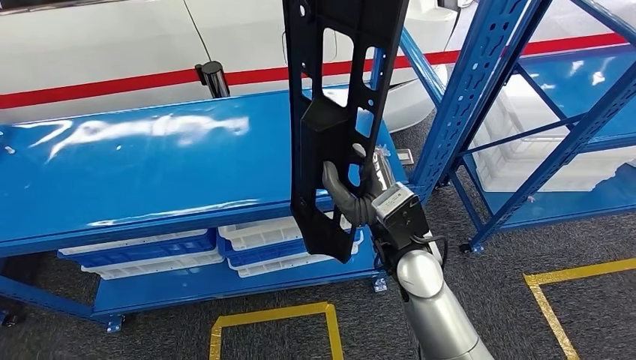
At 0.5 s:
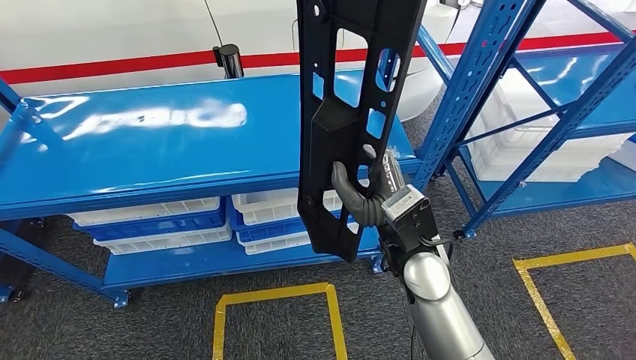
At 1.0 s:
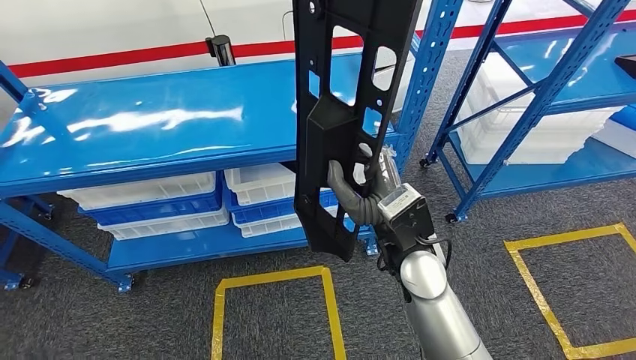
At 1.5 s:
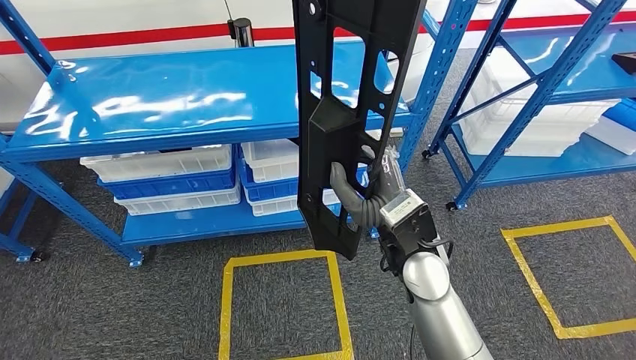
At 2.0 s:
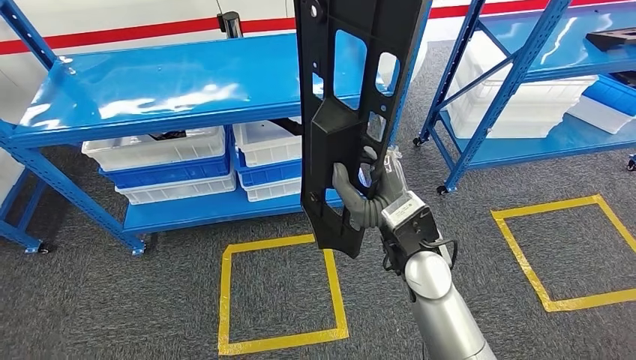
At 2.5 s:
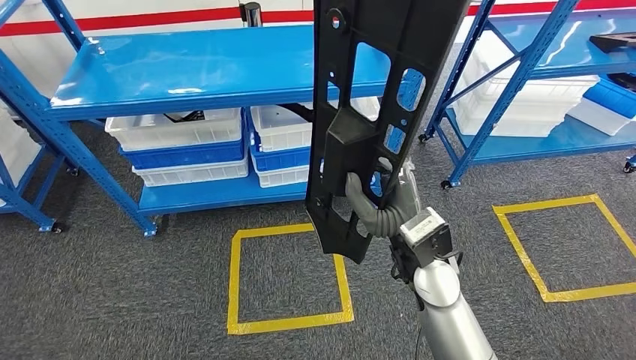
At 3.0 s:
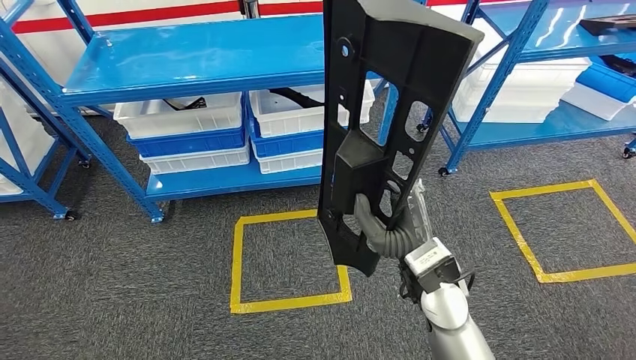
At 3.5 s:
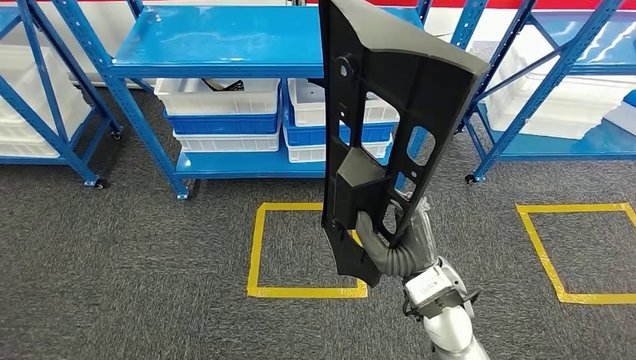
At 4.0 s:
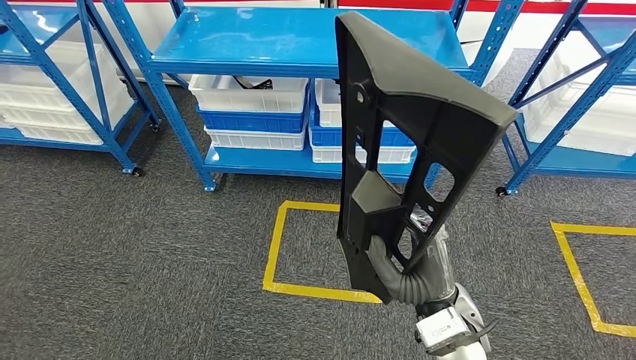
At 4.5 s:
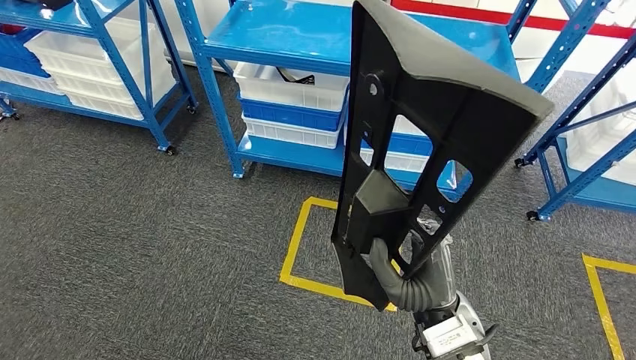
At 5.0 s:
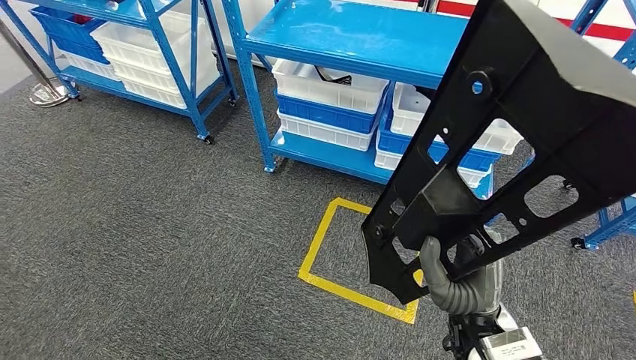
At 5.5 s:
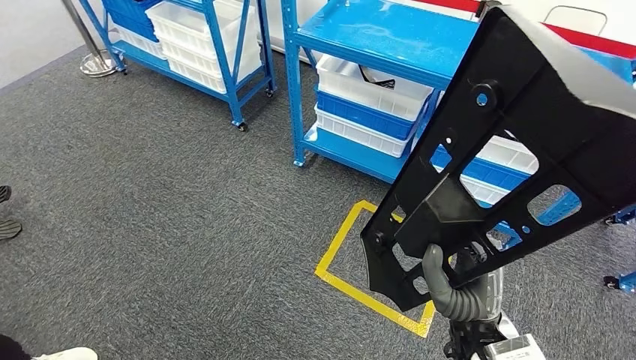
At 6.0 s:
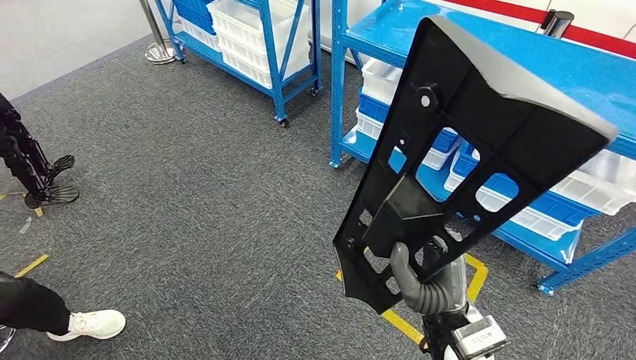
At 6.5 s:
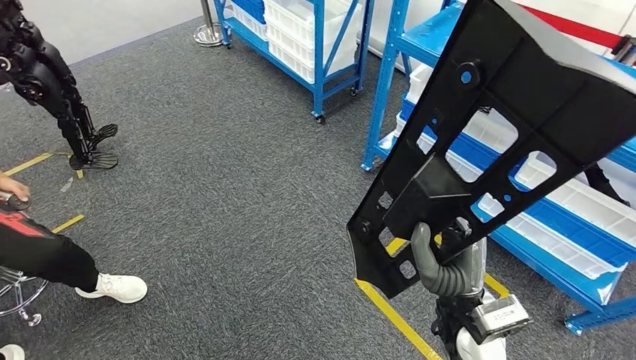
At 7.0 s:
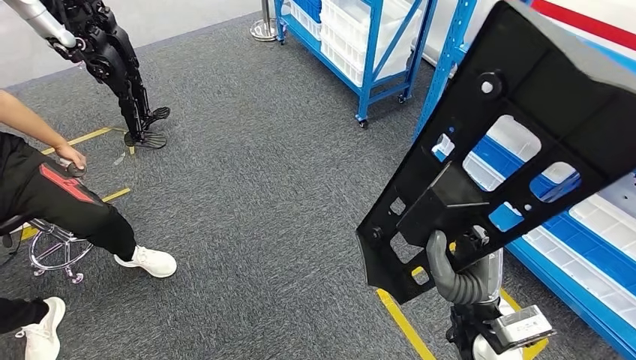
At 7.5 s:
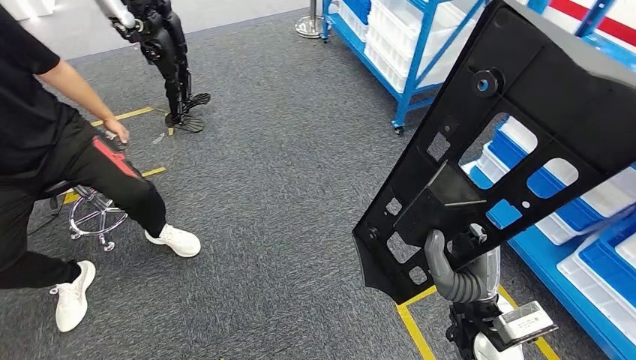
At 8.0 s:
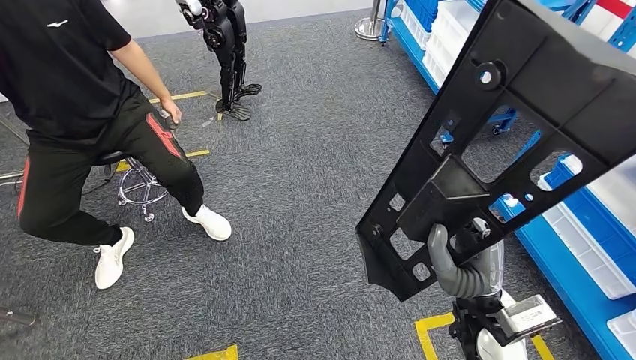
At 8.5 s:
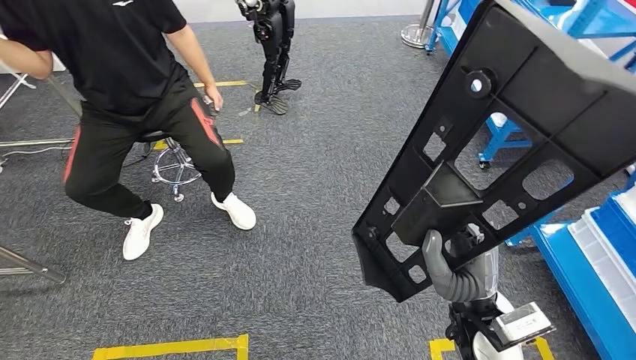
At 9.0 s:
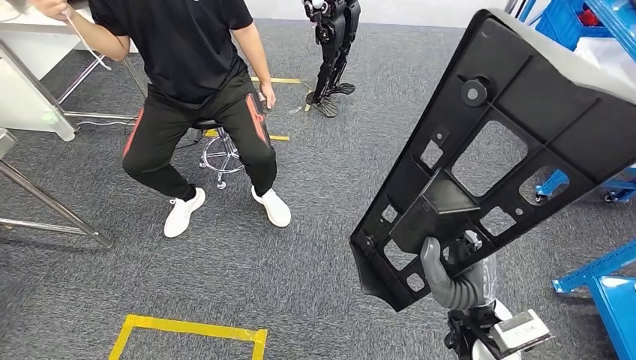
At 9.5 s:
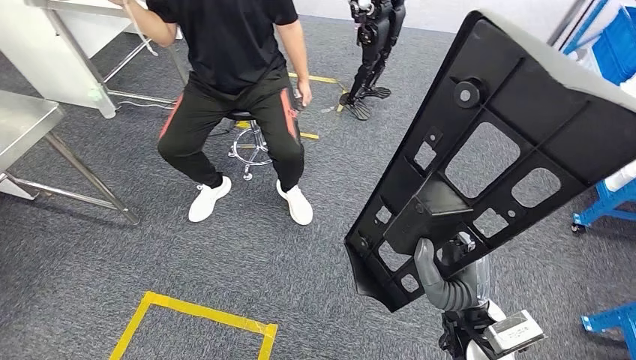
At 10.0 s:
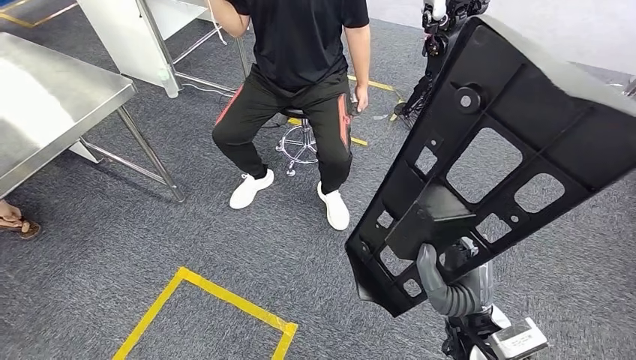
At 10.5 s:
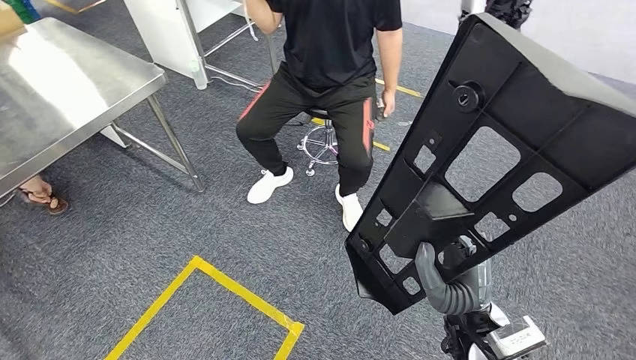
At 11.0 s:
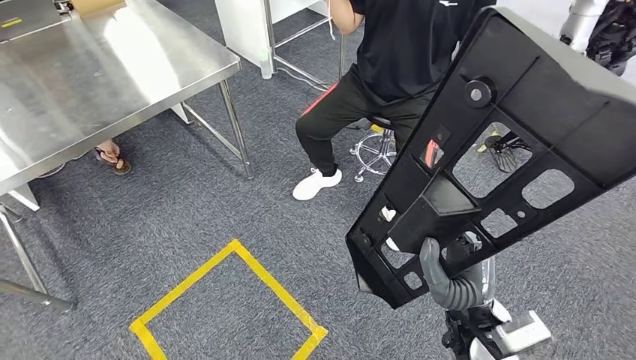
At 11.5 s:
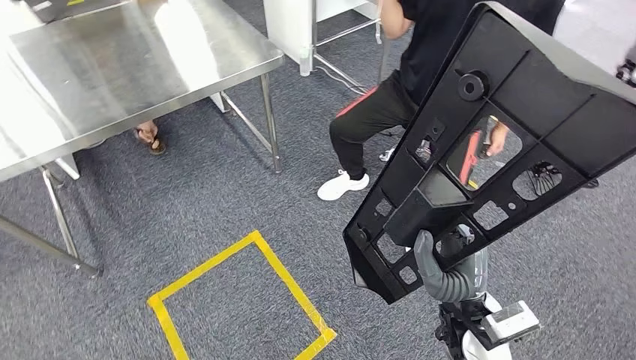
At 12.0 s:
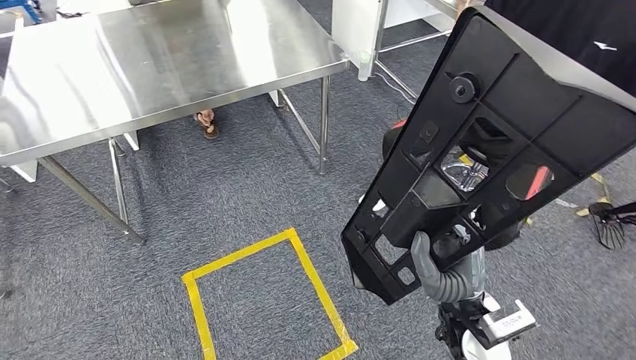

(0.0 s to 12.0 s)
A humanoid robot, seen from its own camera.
Step, 0.0 s - 2.5 s: Pick up the large material from the shelf.

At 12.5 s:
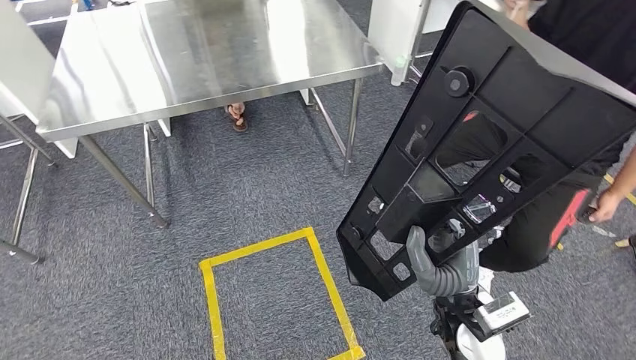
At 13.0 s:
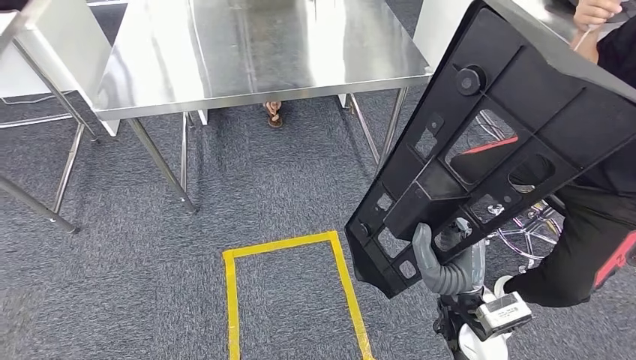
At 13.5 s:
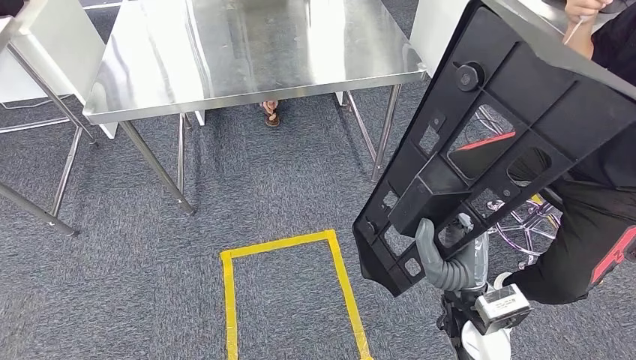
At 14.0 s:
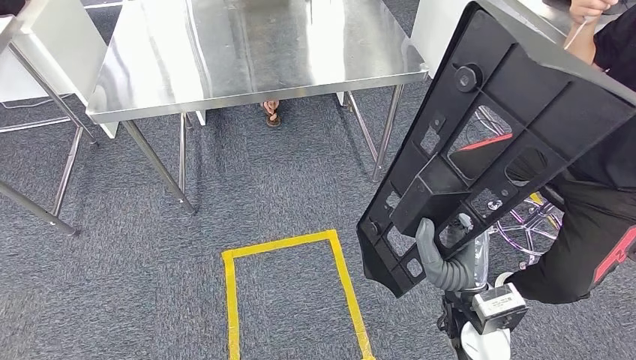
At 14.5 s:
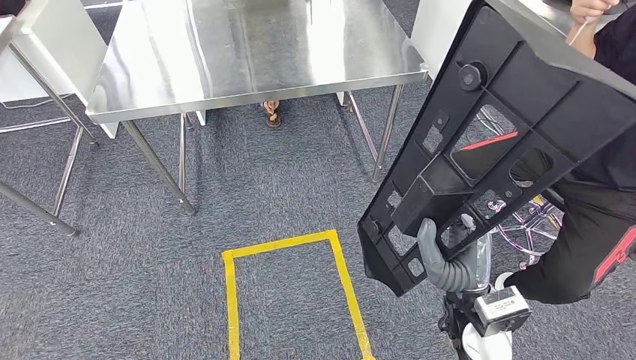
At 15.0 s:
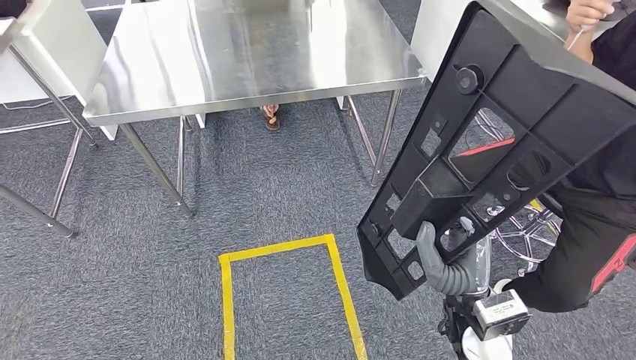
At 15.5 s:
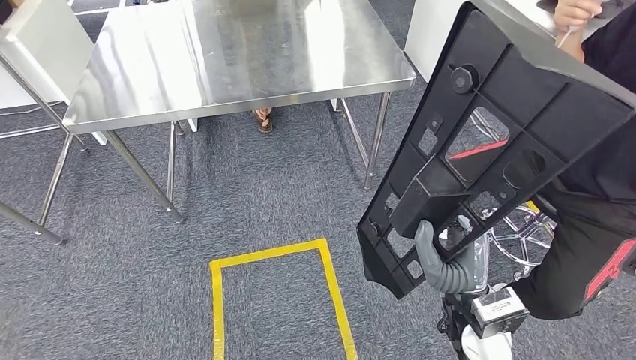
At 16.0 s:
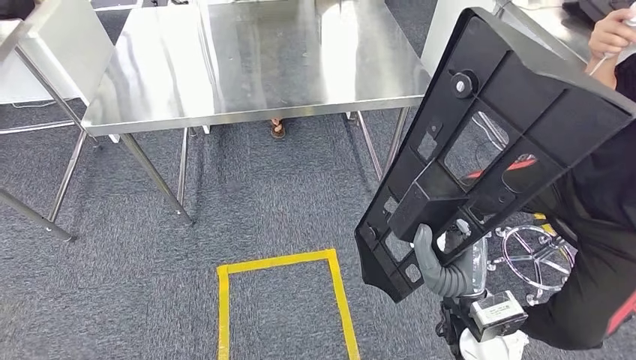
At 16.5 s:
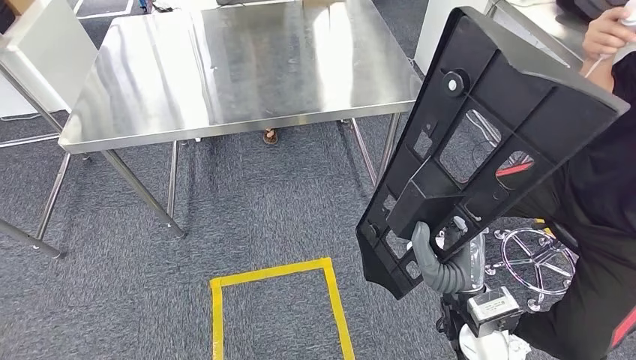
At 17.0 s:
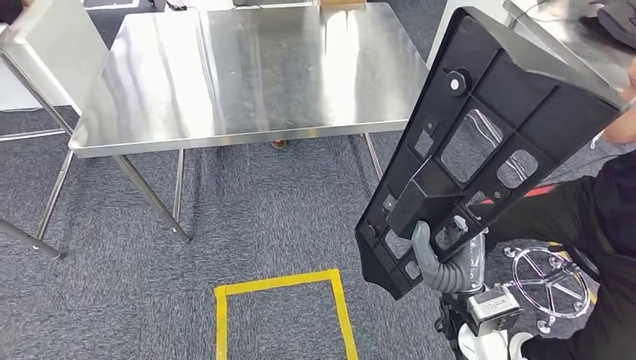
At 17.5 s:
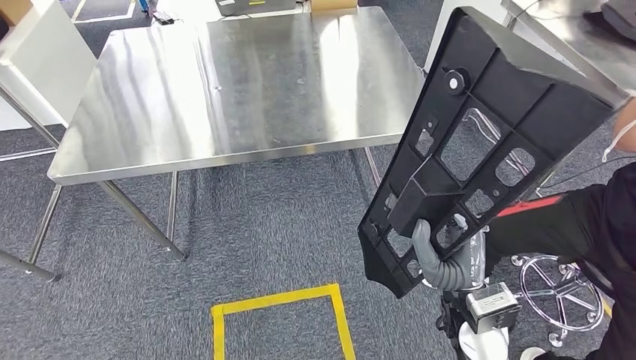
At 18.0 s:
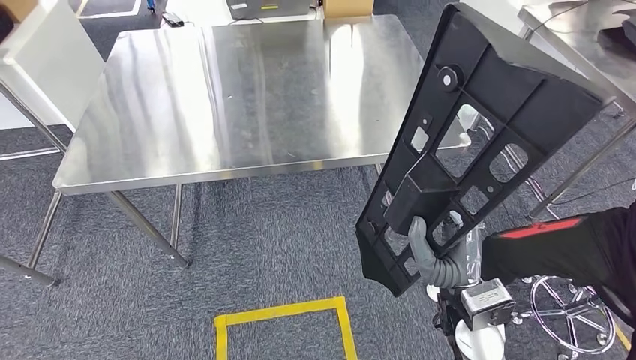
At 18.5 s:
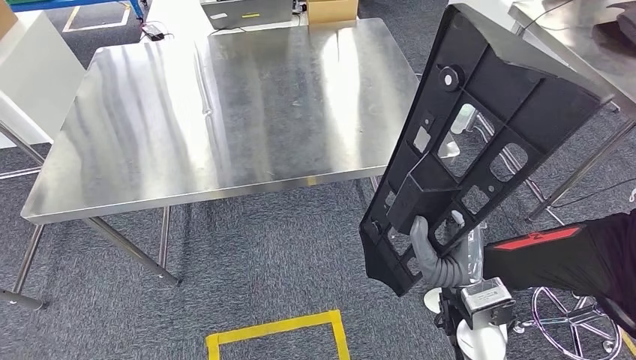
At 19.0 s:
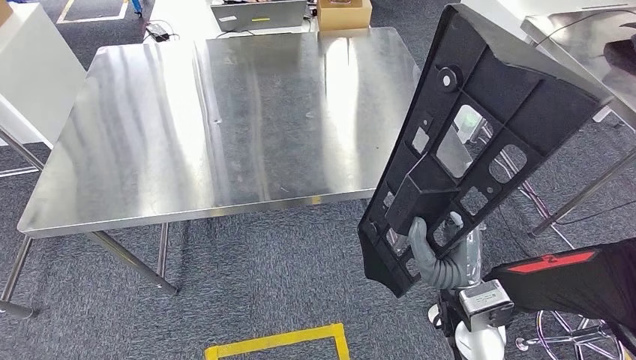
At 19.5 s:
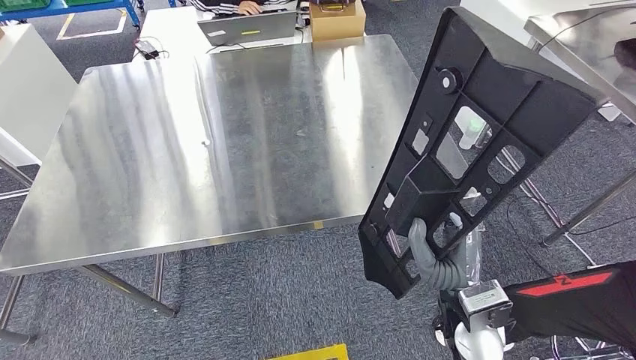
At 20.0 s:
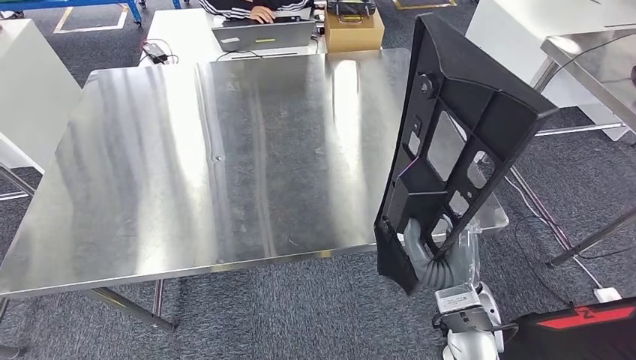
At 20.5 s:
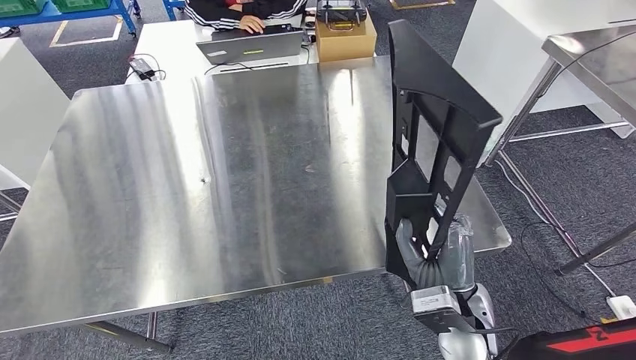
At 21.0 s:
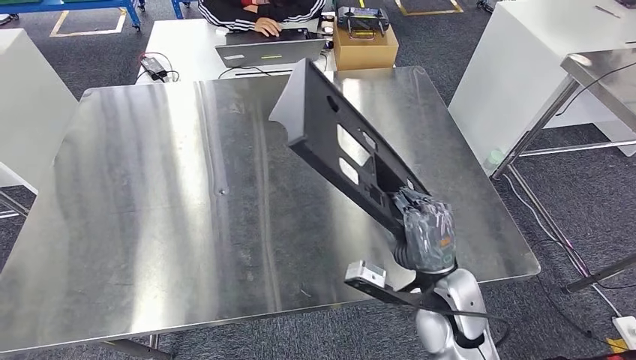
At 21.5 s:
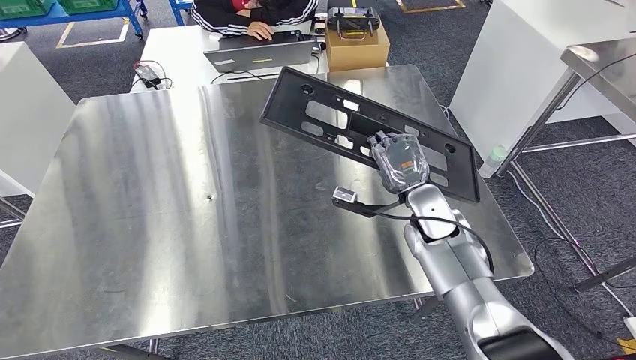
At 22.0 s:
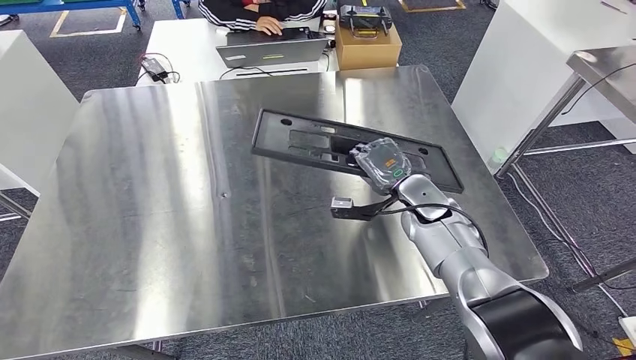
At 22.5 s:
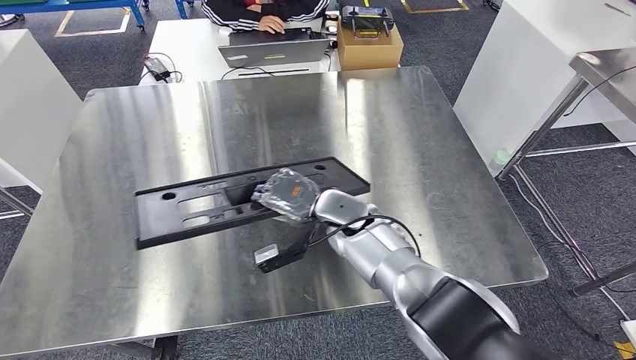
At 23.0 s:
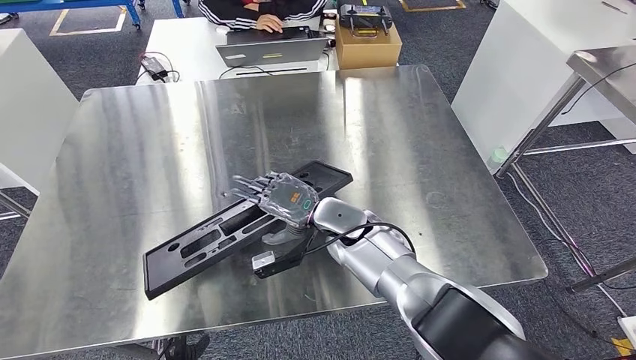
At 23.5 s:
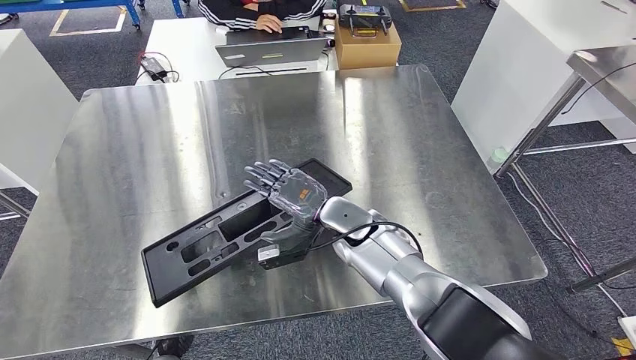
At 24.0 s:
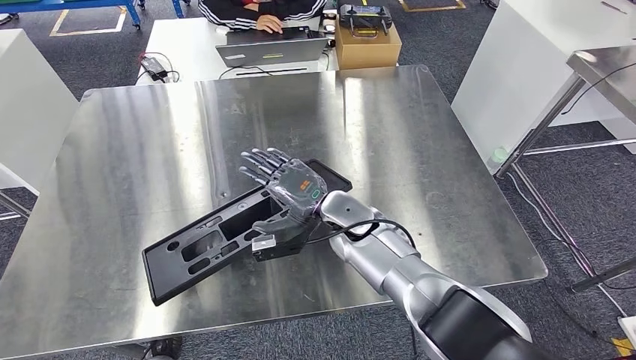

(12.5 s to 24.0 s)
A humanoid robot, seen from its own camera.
Step, 12.5 s - 17.0 s: Move the large material to the workbench.
